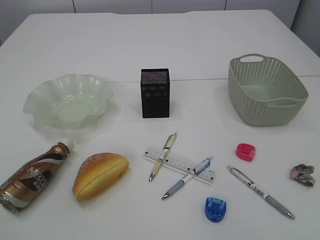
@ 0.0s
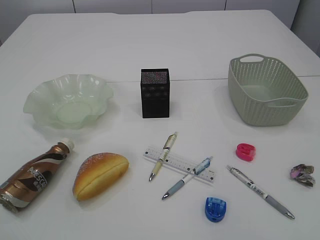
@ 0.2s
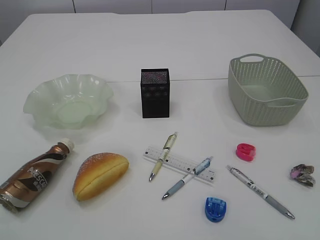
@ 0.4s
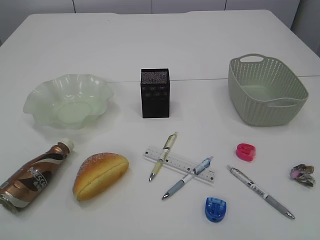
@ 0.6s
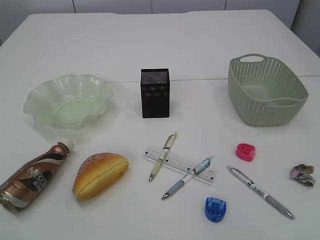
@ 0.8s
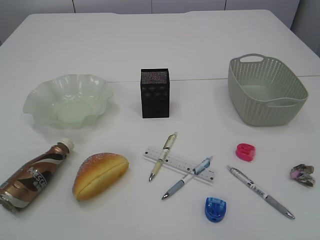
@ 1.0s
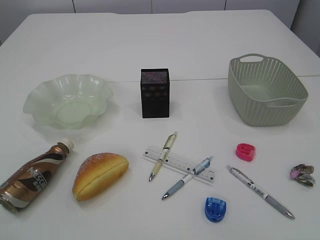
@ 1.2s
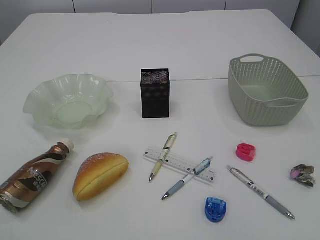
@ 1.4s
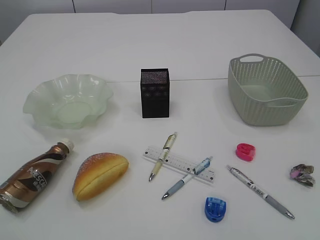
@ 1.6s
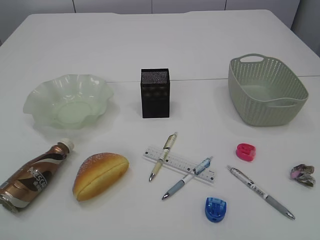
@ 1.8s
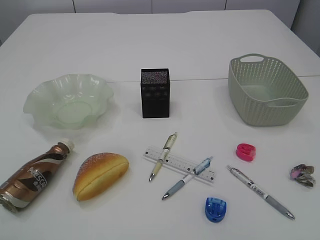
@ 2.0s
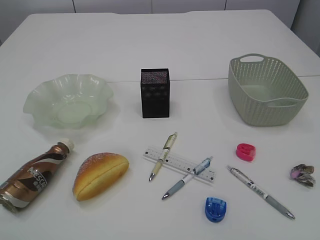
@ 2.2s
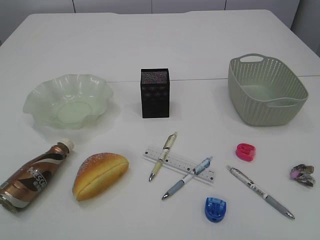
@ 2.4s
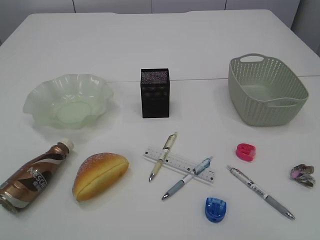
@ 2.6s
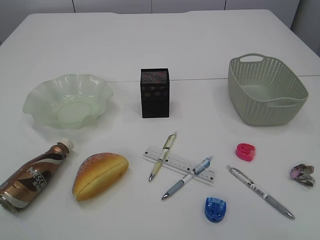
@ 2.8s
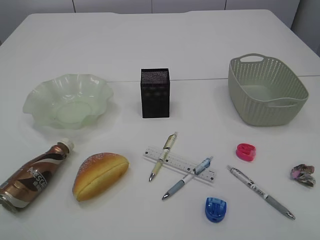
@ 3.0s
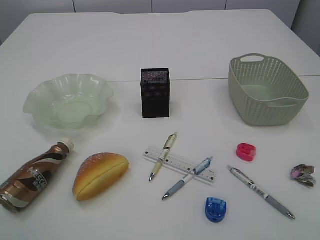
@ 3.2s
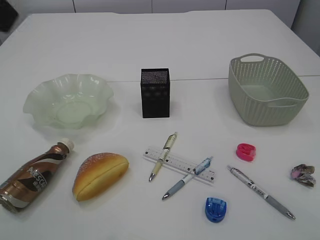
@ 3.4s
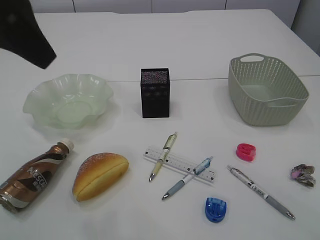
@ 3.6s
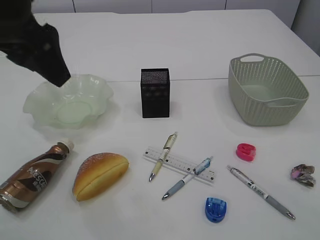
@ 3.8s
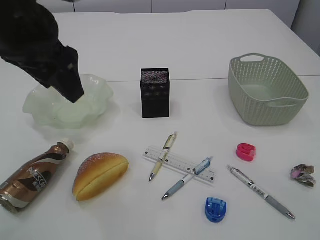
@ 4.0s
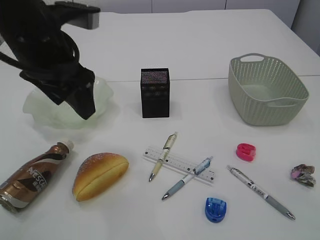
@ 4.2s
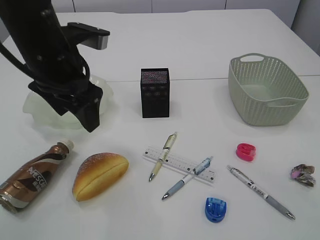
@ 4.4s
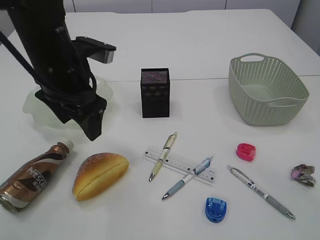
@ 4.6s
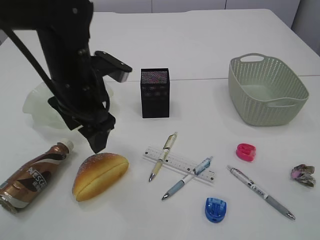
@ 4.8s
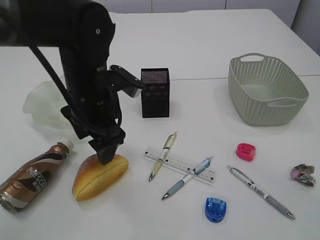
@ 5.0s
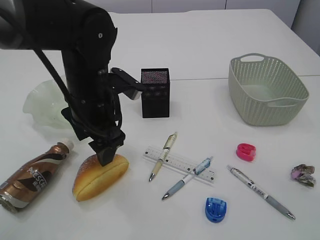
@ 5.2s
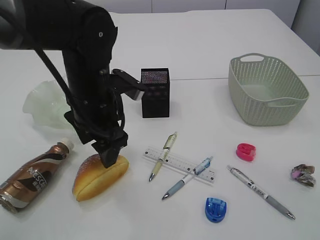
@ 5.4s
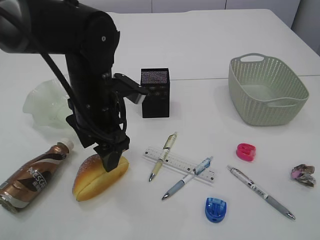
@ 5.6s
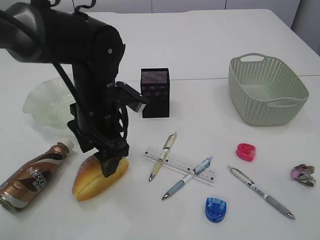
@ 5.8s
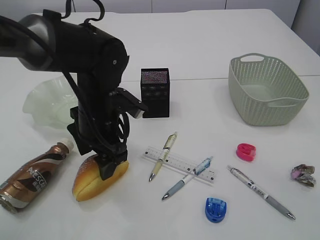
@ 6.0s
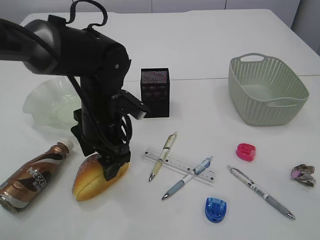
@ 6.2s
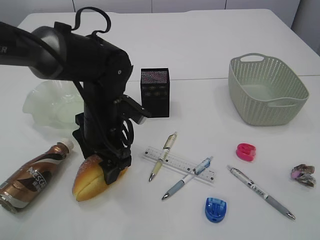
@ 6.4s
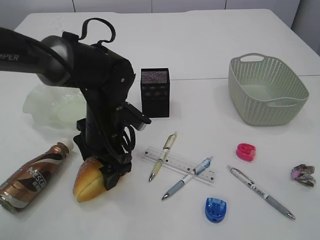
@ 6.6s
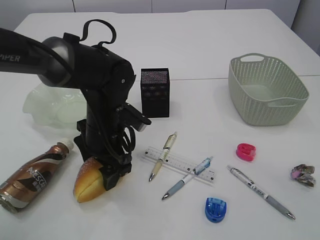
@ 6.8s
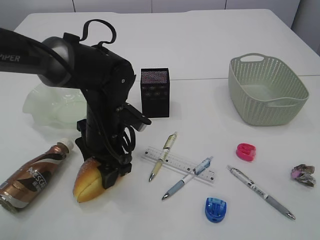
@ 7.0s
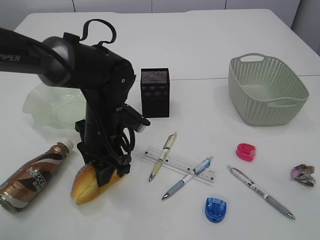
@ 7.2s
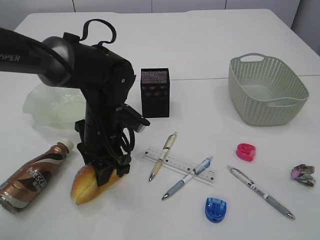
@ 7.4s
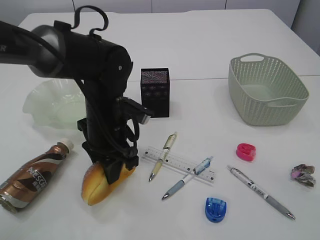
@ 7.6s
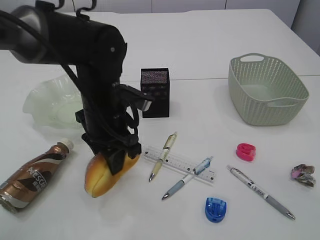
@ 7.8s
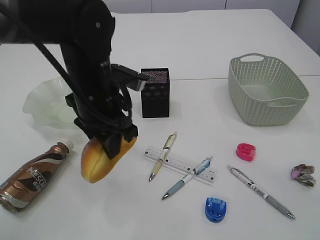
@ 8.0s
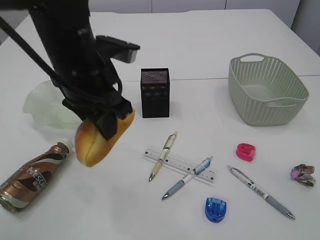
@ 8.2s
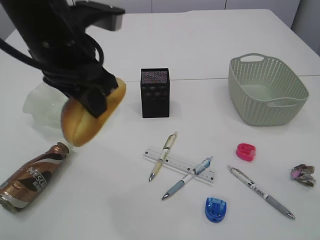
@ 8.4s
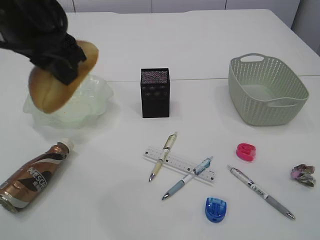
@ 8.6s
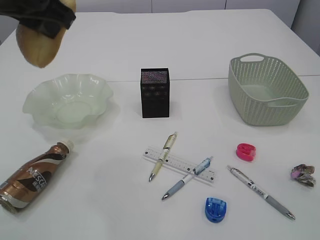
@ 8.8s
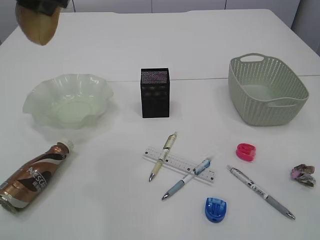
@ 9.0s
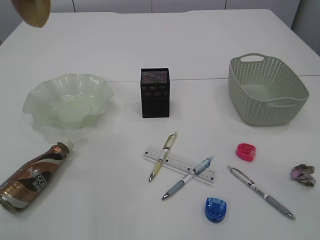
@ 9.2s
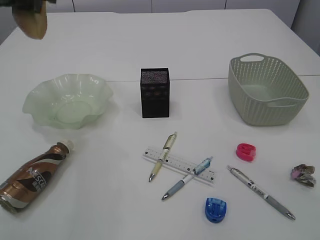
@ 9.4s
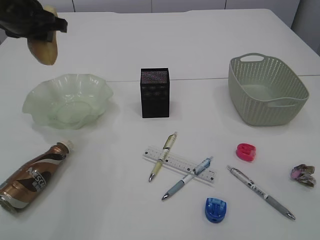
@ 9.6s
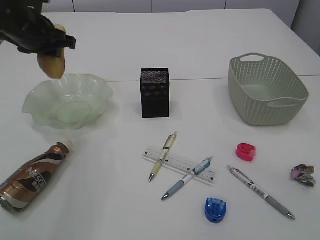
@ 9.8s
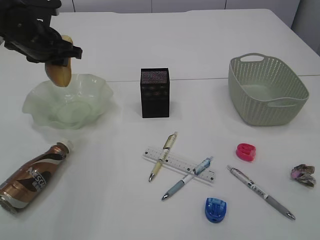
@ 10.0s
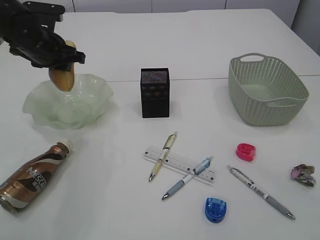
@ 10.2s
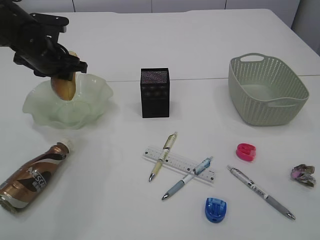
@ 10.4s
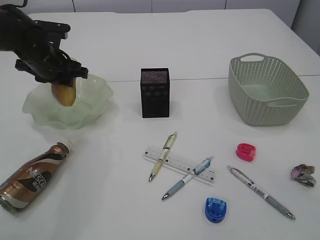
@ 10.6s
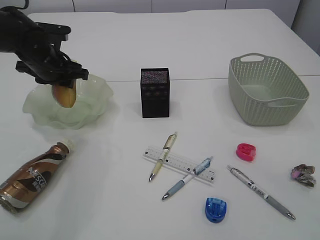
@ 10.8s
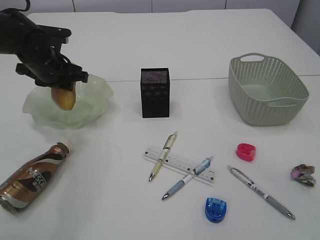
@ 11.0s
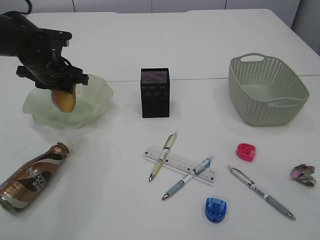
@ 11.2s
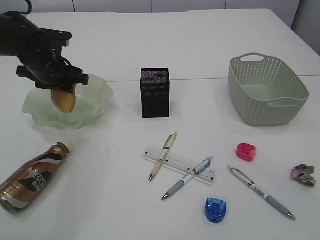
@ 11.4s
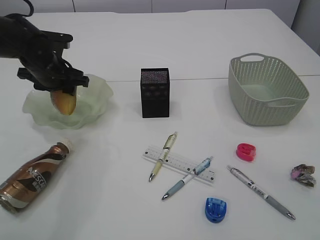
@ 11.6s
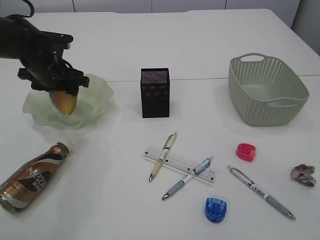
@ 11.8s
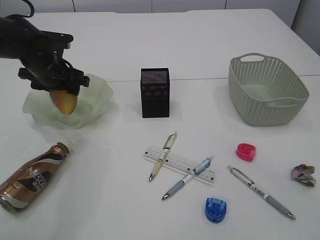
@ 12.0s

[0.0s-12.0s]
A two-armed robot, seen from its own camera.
3.0s to 4.4s: The left gripper shifts about 30 cm downward, forward and to the right.
4.4s to 6.0s: The left gripper travels downward by roughly 10 cm.
6.0s to 7.6s: The left gripper closes.
7.6s to 9.0s: The left gripper heads upward, covering about 25 cm.
9.0s to 10.4s: The left gripper is displaced downward and forward by approximately 25 cm.
10.4s to 12.0s: The left gripper opens its fingers.

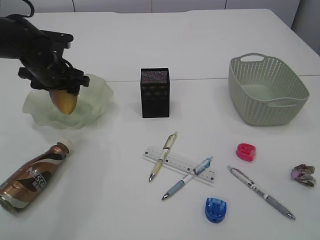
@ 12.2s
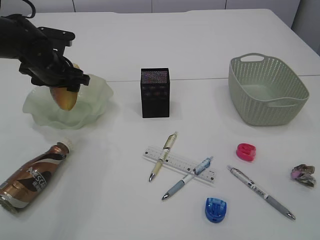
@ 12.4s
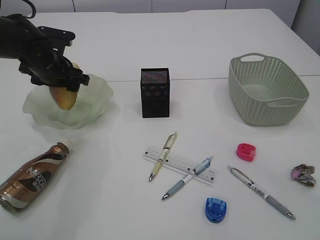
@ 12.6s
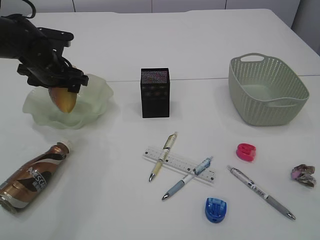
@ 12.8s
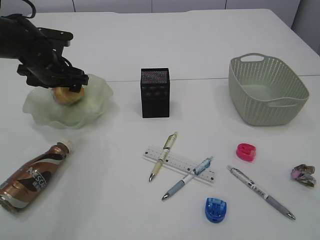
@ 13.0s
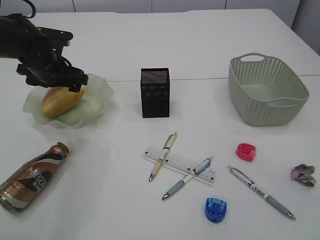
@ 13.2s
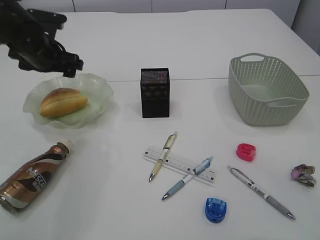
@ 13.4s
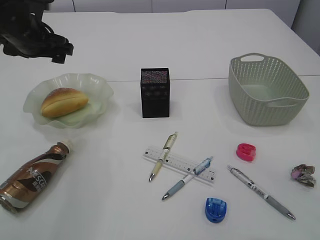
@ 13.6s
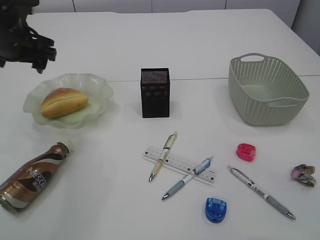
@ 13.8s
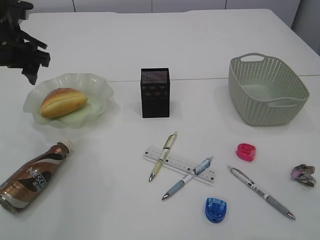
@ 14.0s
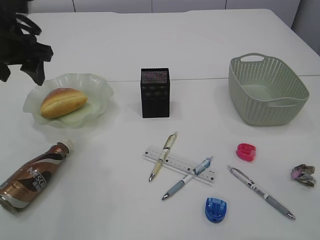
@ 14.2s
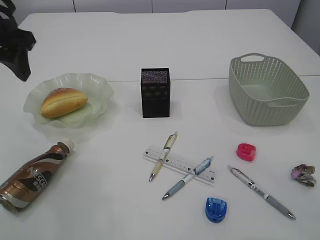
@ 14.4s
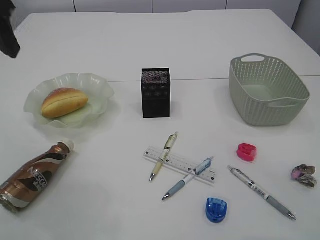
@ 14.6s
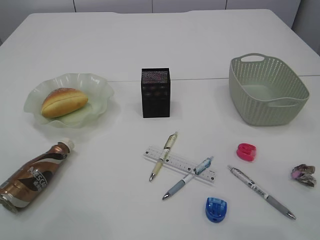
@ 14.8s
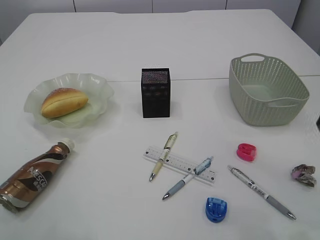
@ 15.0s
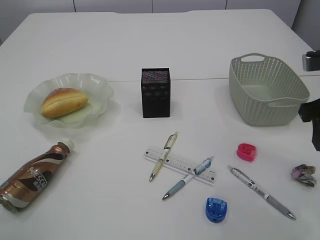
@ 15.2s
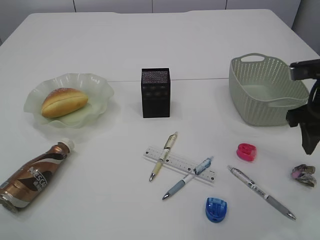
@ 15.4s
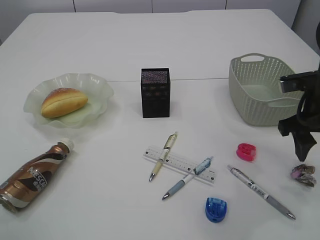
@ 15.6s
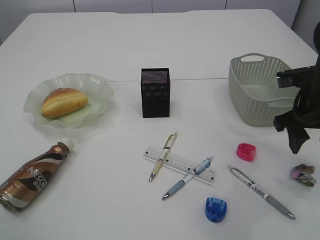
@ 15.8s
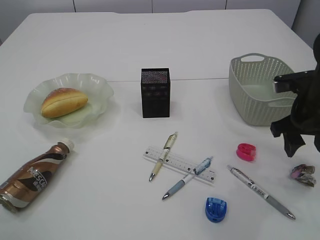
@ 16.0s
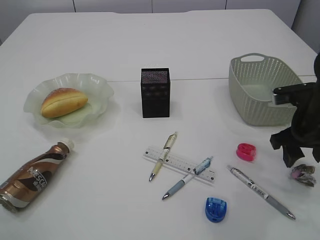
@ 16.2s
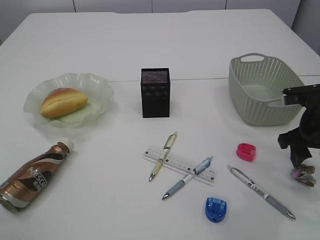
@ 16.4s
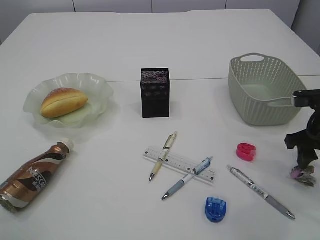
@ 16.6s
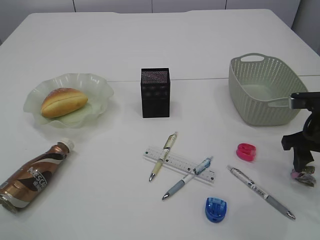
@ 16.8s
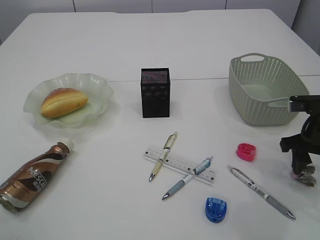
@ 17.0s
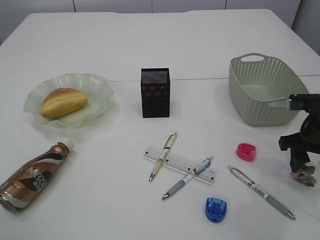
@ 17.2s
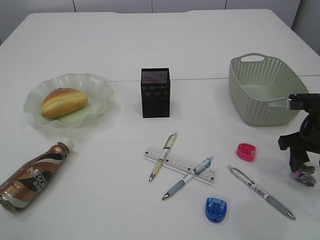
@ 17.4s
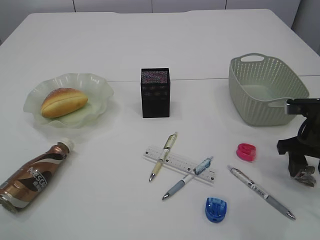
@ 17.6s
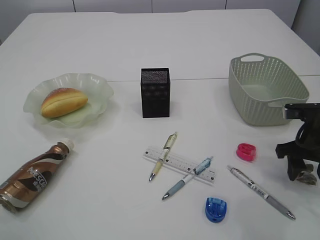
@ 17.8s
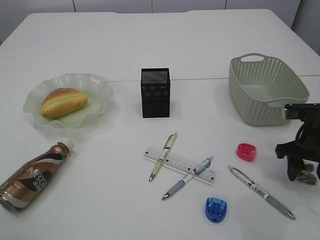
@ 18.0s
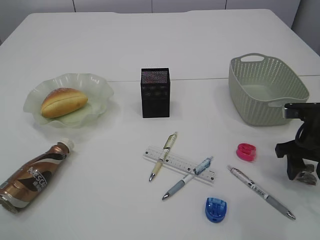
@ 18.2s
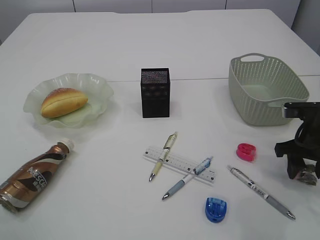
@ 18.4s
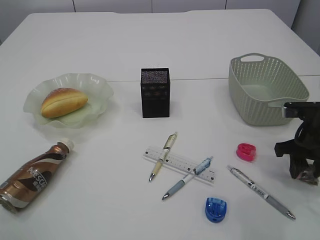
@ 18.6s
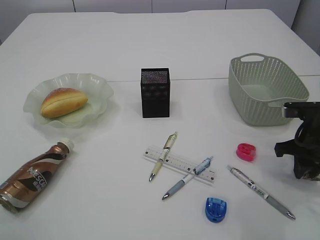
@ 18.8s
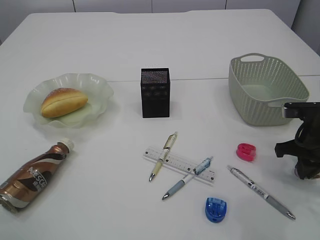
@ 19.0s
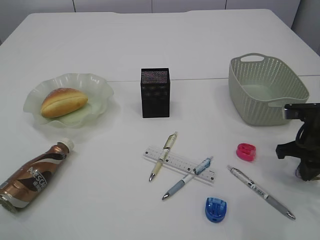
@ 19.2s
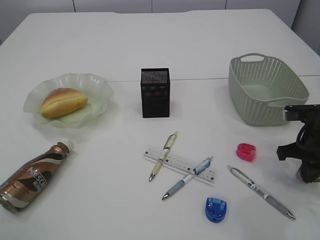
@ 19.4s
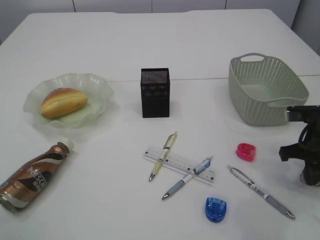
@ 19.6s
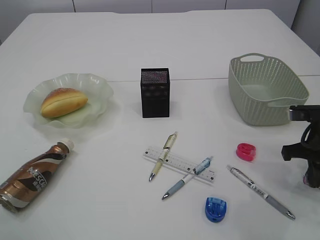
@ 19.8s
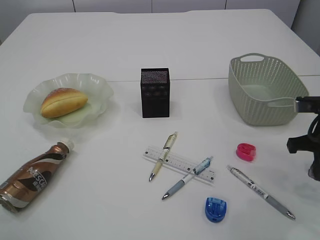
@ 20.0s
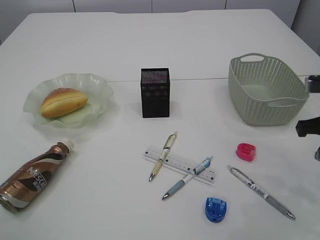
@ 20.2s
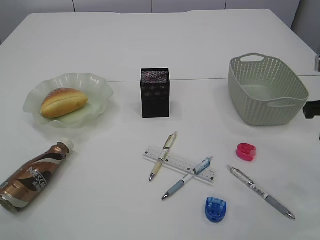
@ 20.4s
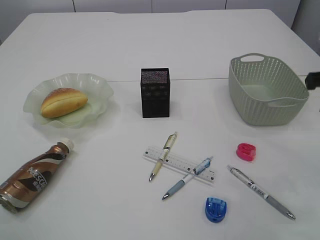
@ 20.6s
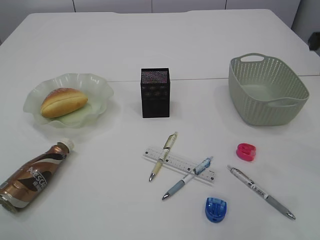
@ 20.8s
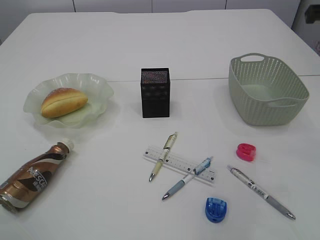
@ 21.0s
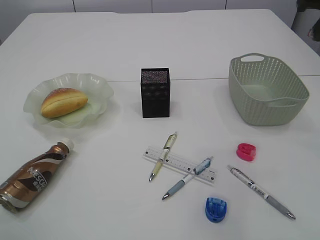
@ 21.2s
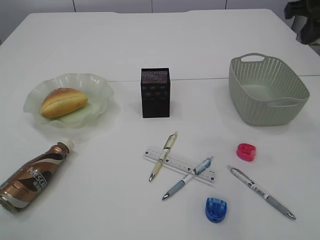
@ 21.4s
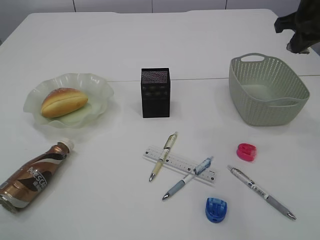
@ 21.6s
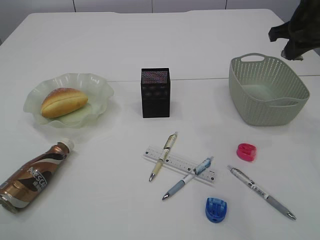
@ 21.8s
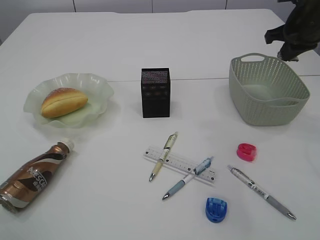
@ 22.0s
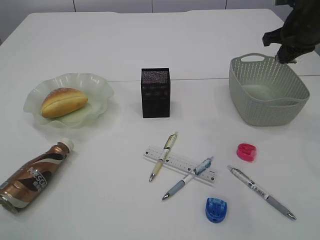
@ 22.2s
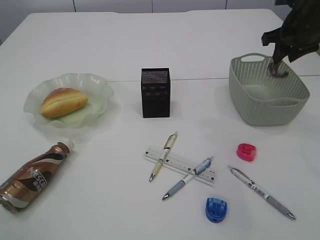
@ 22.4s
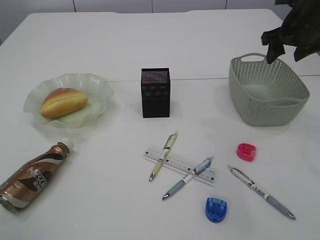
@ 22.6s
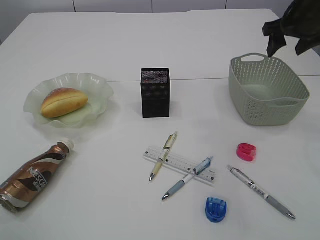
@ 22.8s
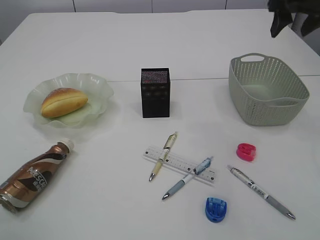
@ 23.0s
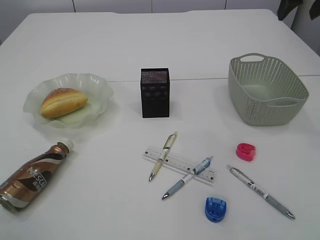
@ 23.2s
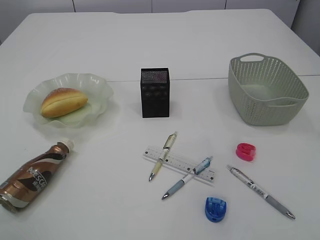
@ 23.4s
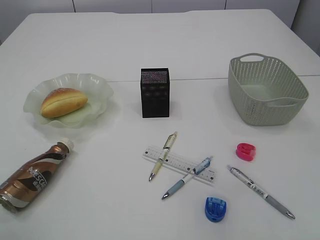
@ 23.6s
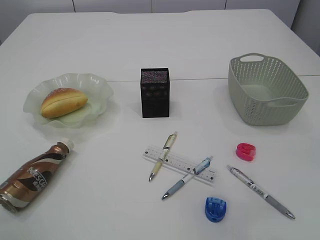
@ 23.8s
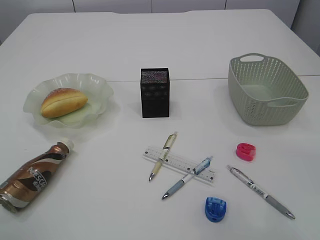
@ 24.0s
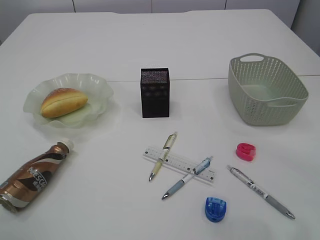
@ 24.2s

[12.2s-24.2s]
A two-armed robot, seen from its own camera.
Step, 13.8s to 20.0s: Pick up the waste paper.
Step, 20.2s to 22.8s: Place the waste paper in the basket.
12.2s to 13.8s: The left gripper goes roughly 10 cm upward.
13.8s to 15.2s: The left gripper moves backward and upward, roughly 25 cm, and closes up. The right gripper shifts some 10 cm forward.
15.2s to 16.6s: The right gripper heads downward, covering about 10 cm.
16.6s to 18.2s: There are only small adjustments of the grippers.
18.2s to 19.8s: The right gripper closes its fingers.
19.8s to 21.2s: The right gripper is displaced upward by about 20 cm.
21.2s to 22.6s: The right gripper goes some 10 cm forward and downward, and opens.
22.6s to 24.2s: The right gripper goes approximately 25 cm backward and upward.
